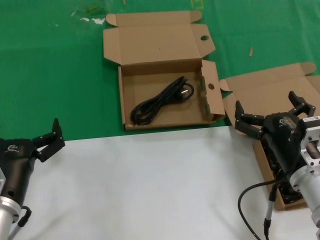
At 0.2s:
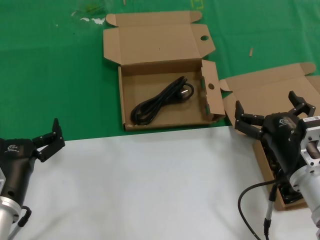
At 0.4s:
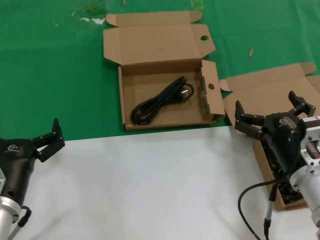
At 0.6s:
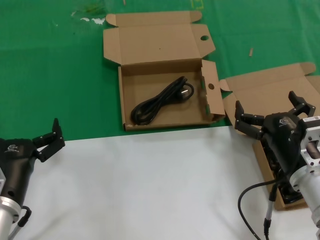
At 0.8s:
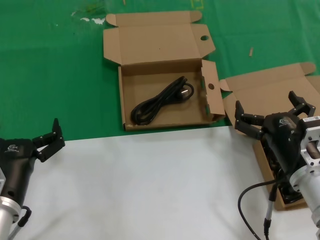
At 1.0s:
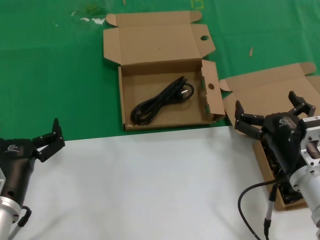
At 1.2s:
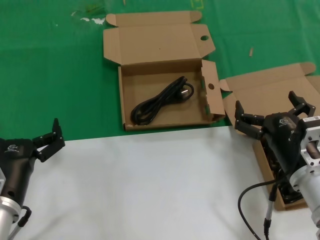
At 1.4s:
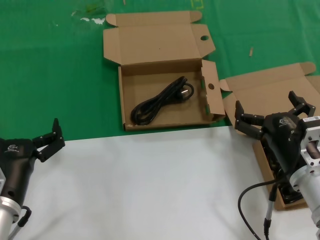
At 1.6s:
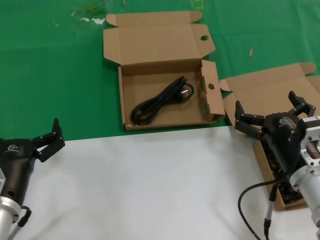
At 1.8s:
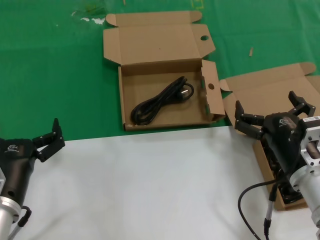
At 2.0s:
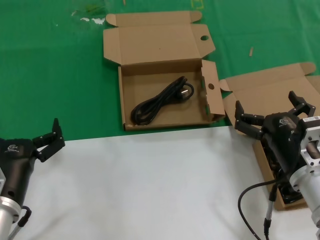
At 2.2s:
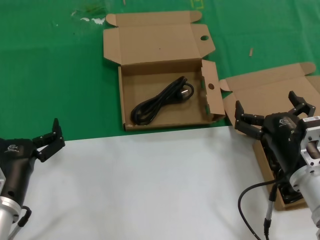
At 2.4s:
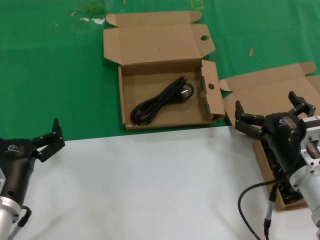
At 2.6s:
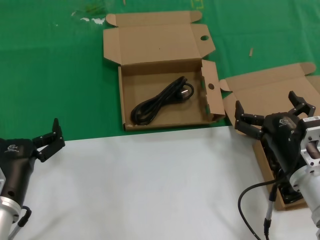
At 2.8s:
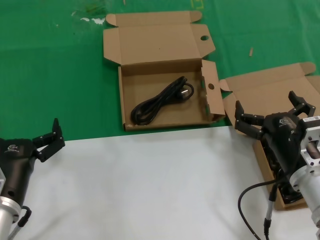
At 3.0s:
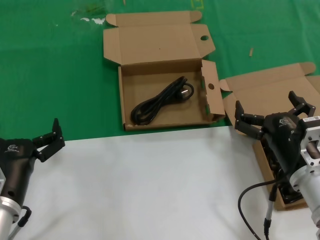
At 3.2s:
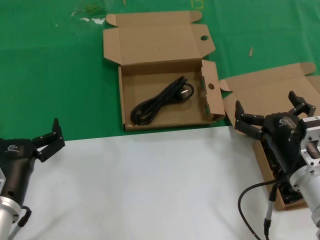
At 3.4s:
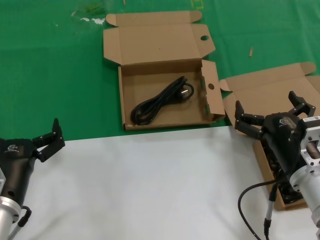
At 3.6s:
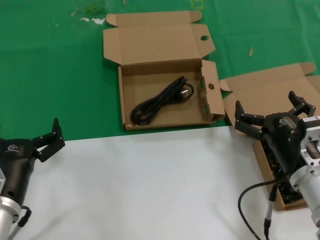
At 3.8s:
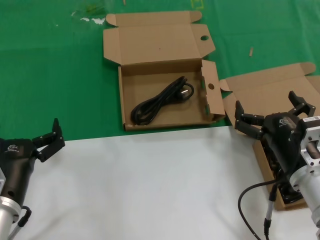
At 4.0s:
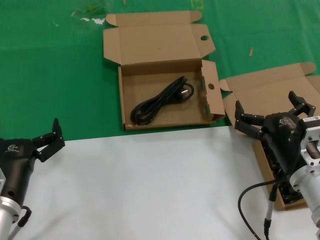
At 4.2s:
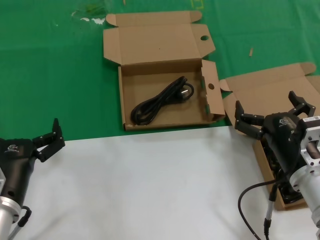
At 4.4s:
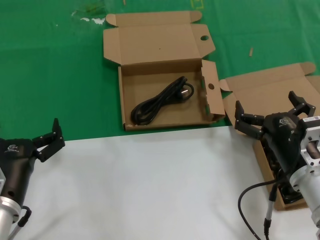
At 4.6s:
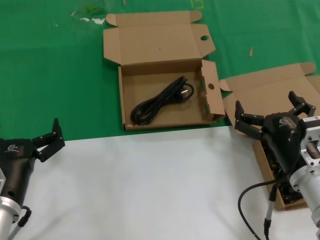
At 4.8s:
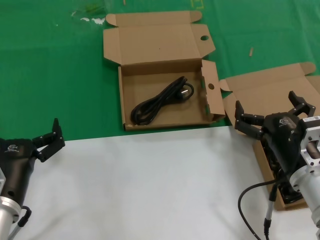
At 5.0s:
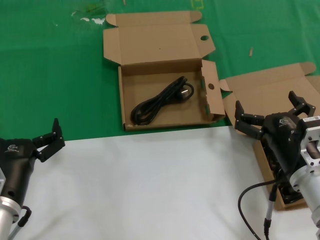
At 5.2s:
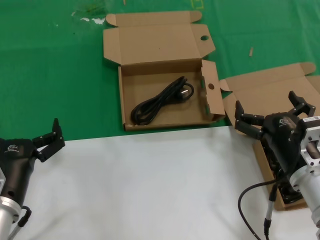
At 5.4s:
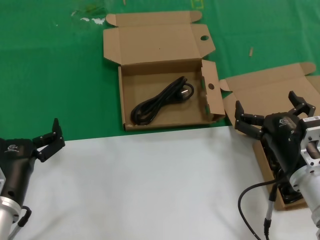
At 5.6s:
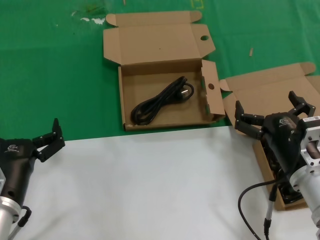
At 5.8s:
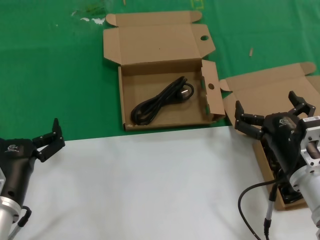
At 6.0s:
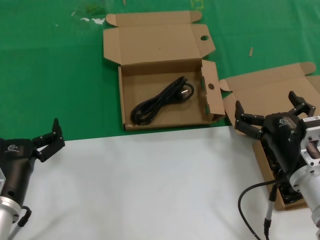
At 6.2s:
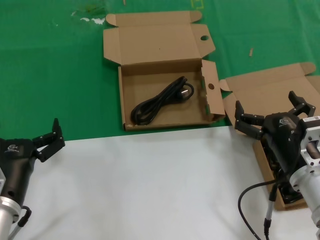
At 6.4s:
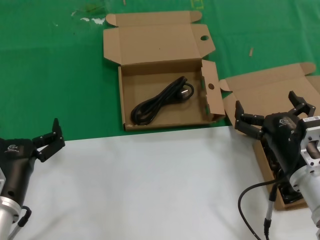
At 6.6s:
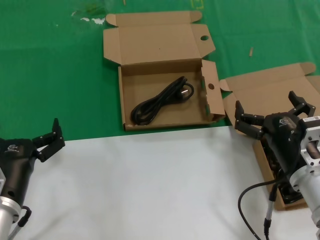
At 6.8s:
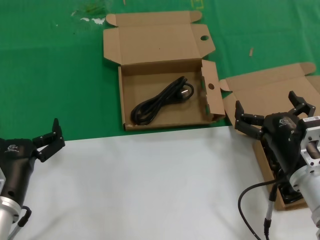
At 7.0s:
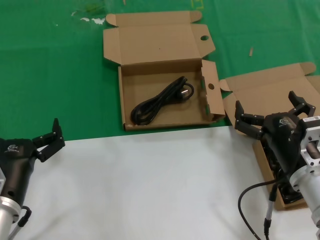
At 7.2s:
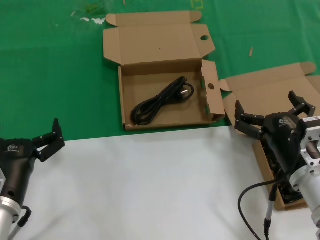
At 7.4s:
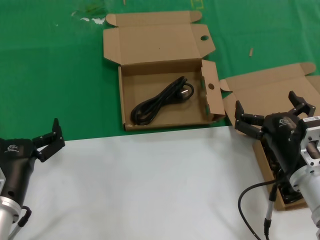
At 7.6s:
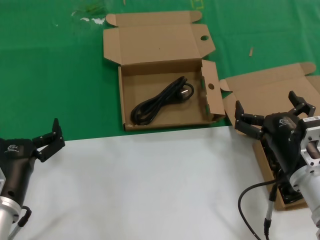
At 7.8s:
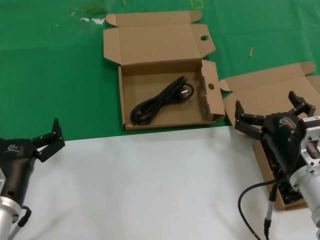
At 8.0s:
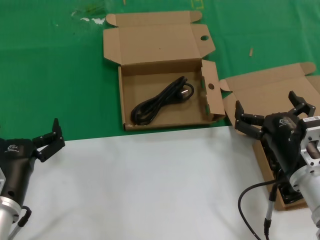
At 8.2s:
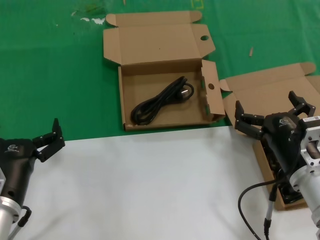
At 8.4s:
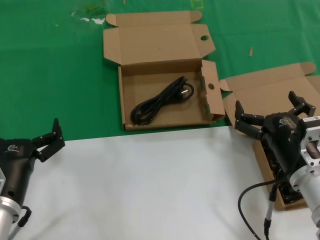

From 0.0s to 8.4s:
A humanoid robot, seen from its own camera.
Task of the whole recording: take the parts from the box containing them and put them into an empty box.
From 0.0s to 8.4s: Both hands stay about where they are.

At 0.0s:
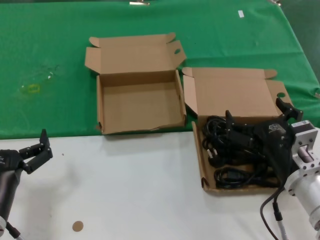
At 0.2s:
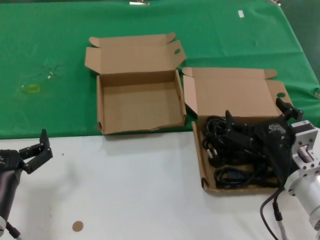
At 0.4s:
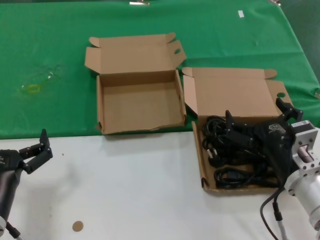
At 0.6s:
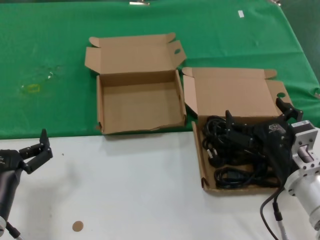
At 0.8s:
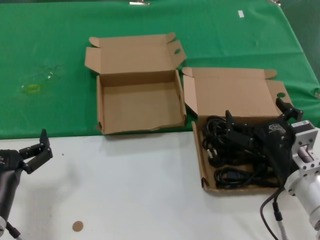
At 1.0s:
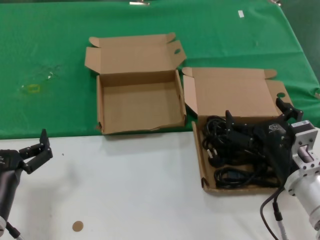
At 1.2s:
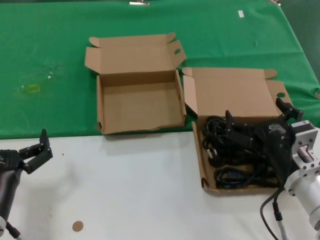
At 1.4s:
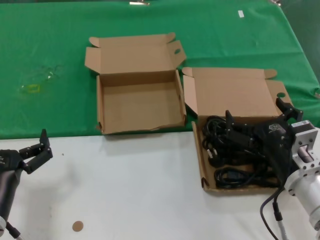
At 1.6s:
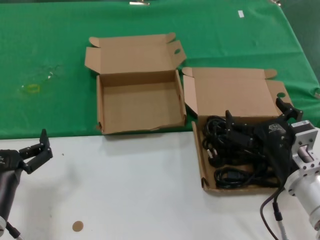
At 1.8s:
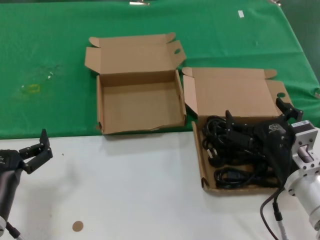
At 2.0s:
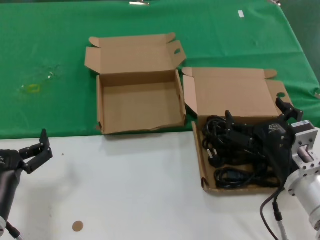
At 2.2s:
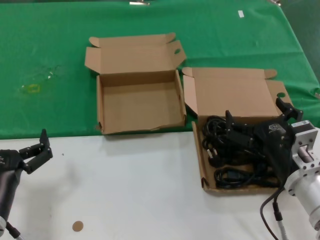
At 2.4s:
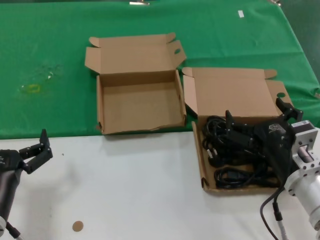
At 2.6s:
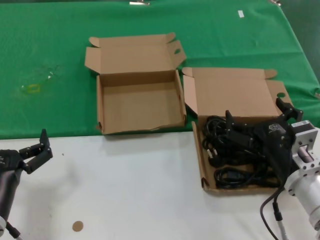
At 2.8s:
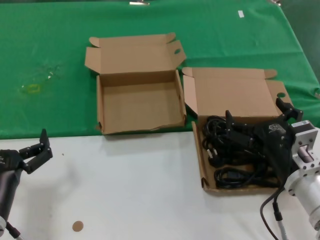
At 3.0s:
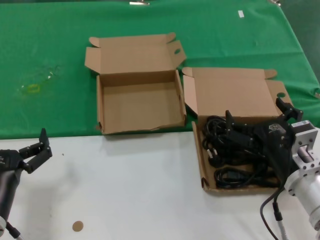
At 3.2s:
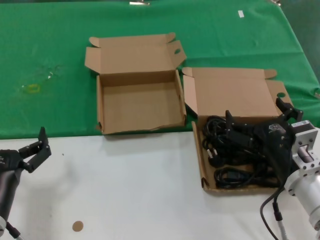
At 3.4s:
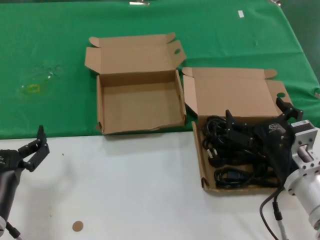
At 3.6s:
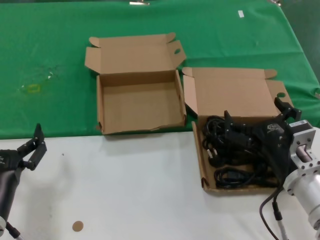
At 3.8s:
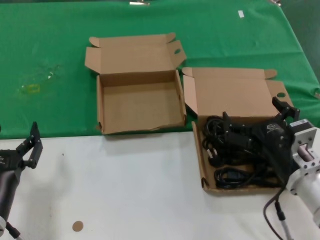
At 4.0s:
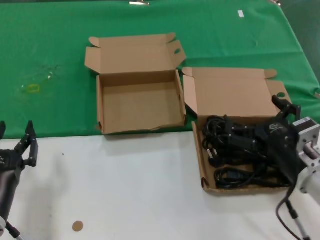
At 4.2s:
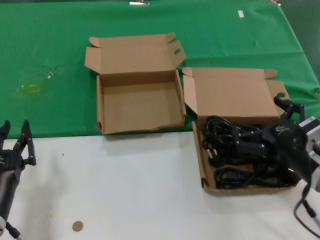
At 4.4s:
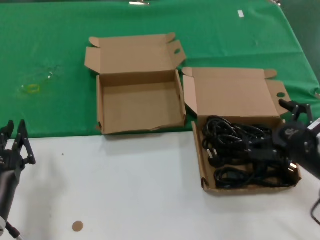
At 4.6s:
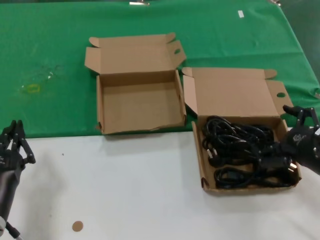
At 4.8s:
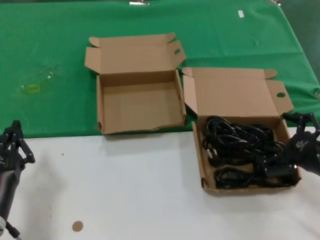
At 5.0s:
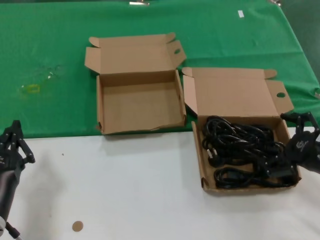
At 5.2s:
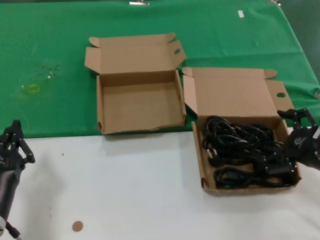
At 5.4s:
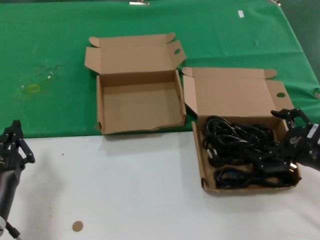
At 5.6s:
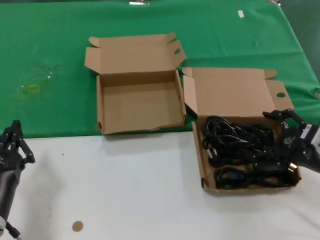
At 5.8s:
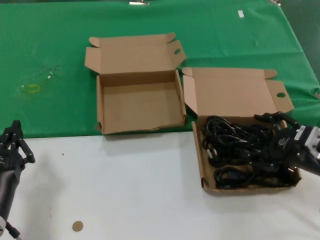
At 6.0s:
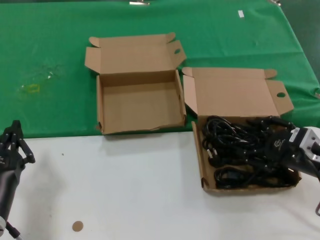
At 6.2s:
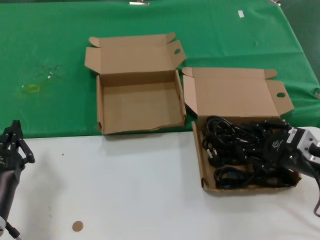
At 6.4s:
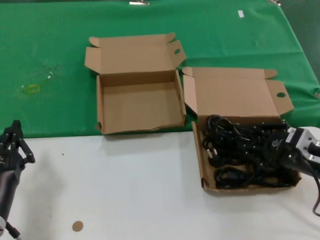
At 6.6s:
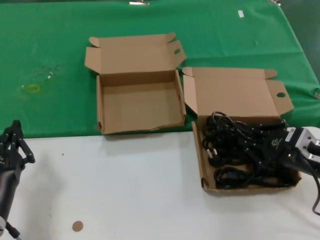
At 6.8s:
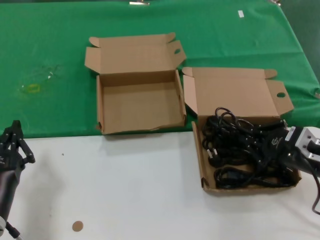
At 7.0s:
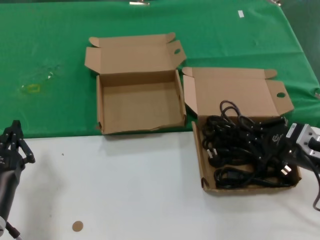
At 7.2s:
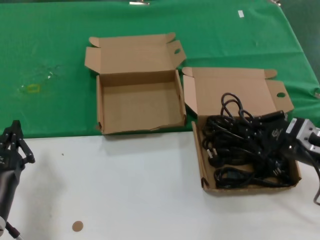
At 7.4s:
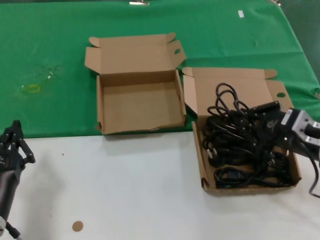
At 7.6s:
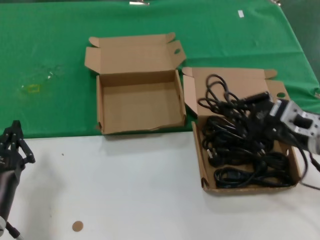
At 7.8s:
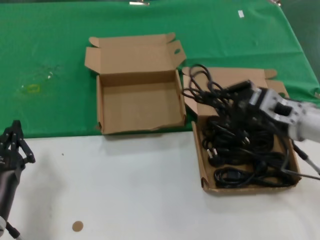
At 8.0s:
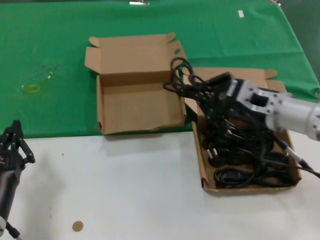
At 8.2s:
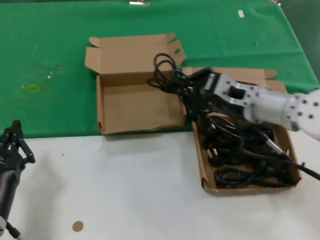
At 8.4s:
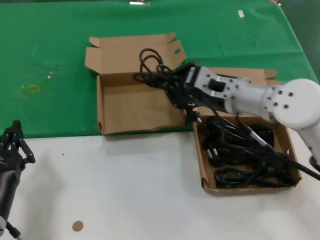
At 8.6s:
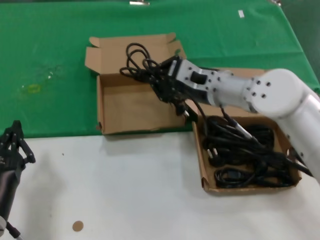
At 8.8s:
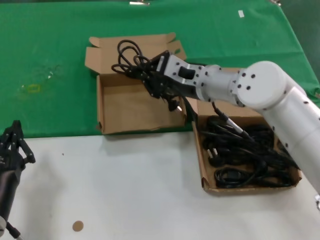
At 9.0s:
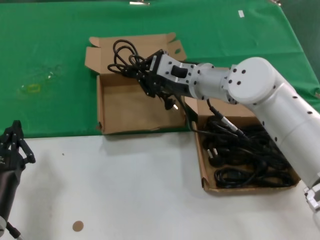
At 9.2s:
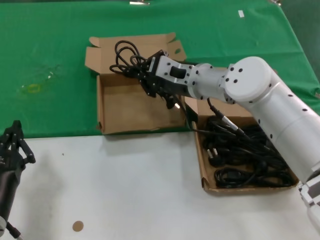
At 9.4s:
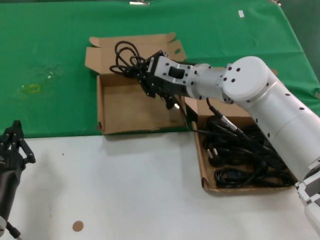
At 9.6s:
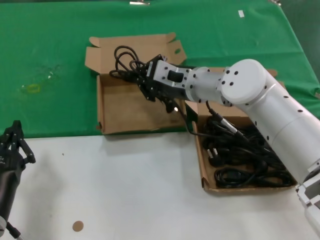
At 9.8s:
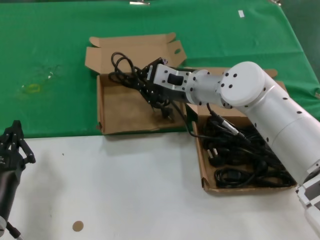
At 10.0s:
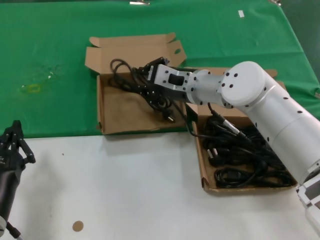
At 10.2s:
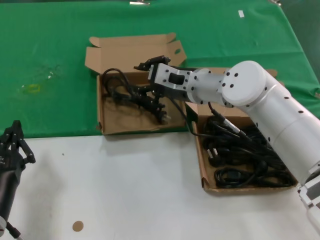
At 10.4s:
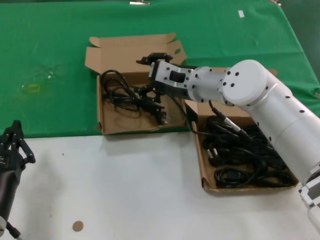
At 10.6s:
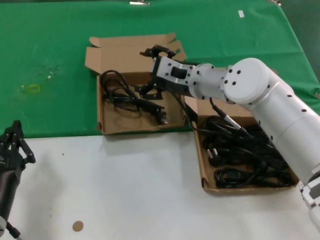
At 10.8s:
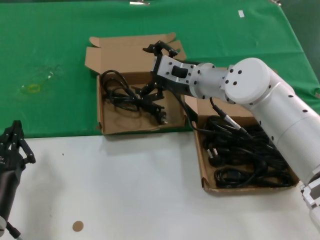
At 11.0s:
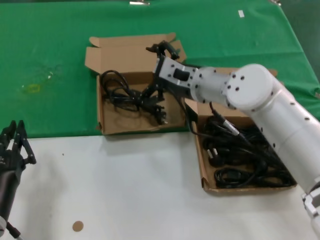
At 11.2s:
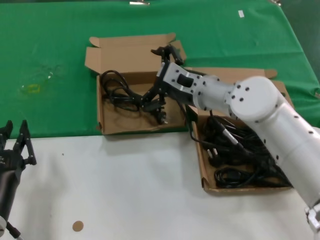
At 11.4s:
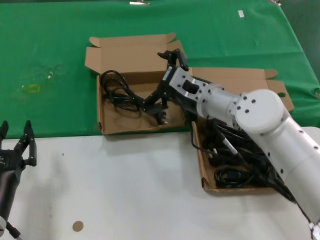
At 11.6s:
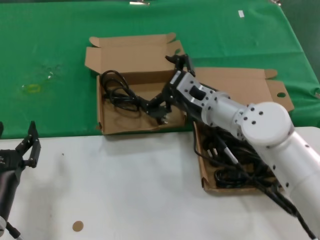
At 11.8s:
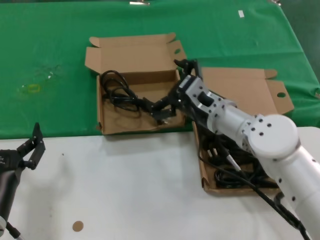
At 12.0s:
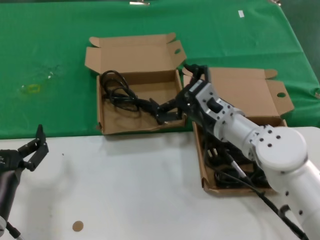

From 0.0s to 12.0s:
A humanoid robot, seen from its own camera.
Task of the whole recording: take the parts from the box containing them and put them into an empty box.
Step, from 0.0s to 6.6s: Grasp the data cable.
Step, from 6.8s to 10.6s: Place the data cable in the another box.
From 0.0s to 3.0s: Neither hand changes place.
From 3.0s to 4.4s: The right hand goes some 10 cm to the right.
From 6.0s to 7.6s: The right hand changes place by about 5 cm.
From 7.6s to 9.0s: The right hand shifts about 25 cm to the left and forward.
From 9.0s to 10.4s: The hands move only a little.
From 10.4s to 12.0s: The right hand is displaced backward and downward by roughly 10 cm.

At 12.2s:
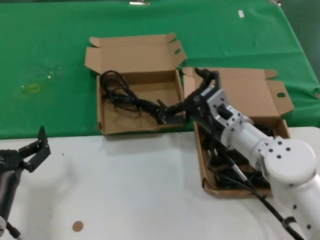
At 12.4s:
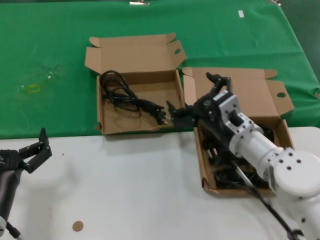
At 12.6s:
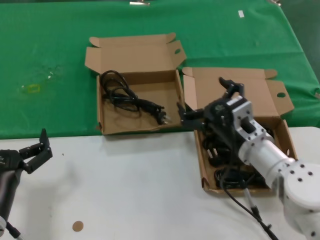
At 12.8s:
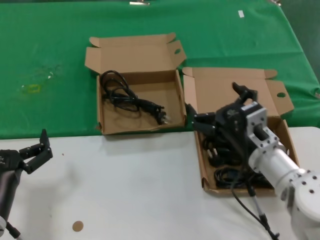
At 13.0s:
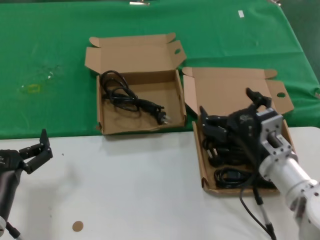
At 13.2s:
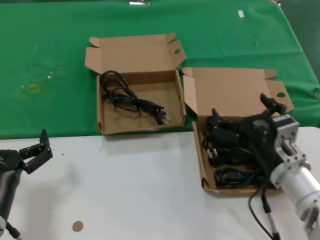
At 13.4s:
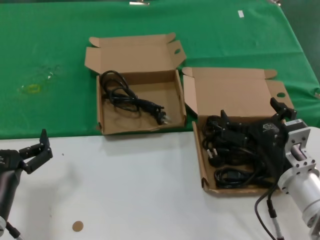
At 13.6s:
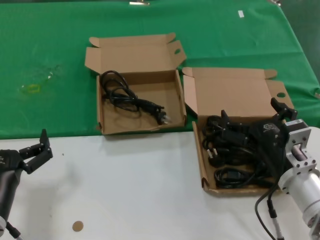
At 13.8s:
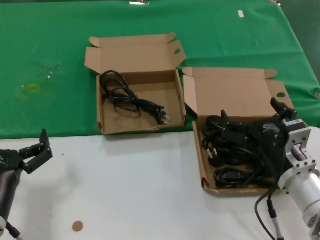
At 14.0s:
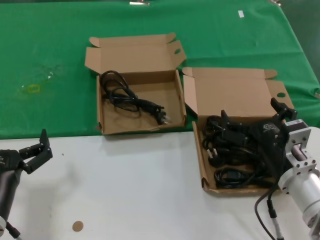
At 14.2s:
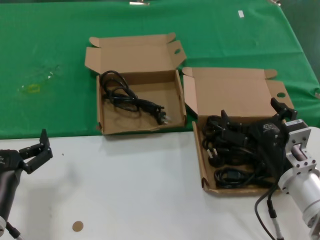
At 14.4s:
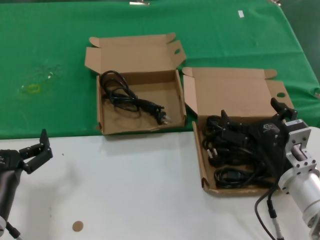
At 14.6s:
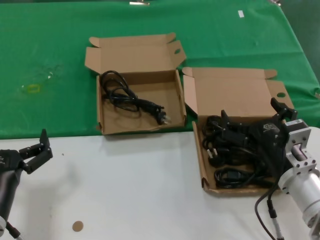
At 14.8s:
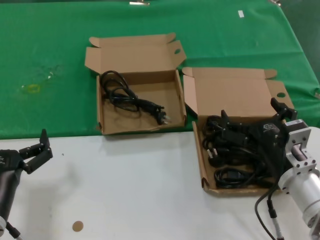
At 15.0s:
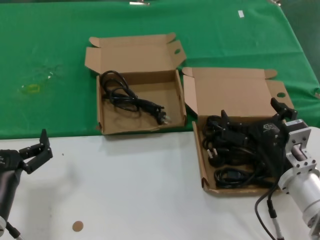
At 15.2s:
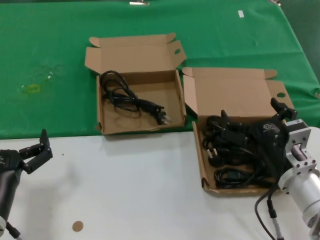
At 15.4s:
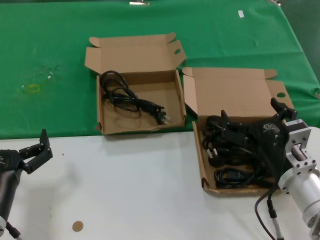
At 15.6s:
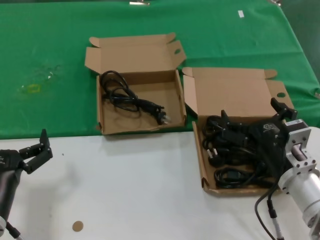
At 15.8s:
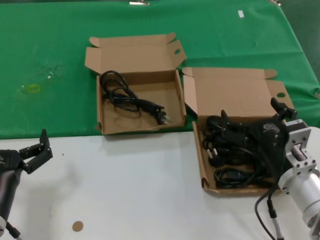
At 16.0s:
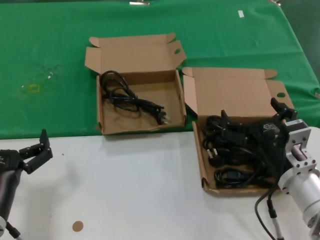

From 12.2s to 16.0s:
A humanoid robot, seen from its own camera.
Task of the whole recording: take the parts from the box containing them and put them into an empty box.
From 12.2s to 13.4s: The right hand shifts roughly 15 cm backward and to the right.
From 13.4s to 16.0s: Both hands stay about where they are.
